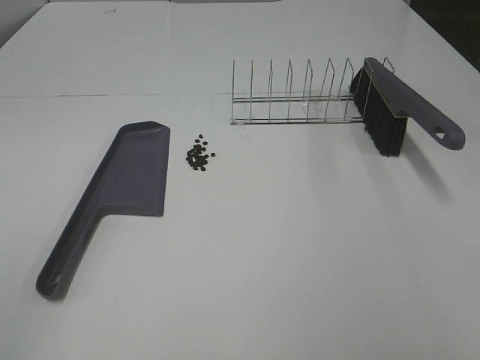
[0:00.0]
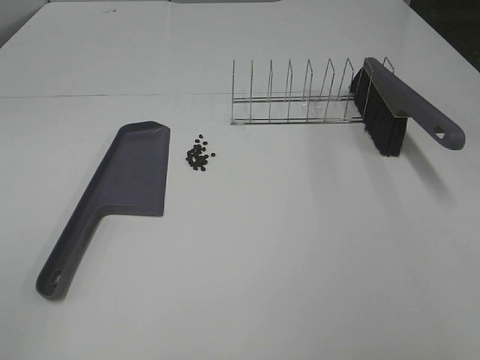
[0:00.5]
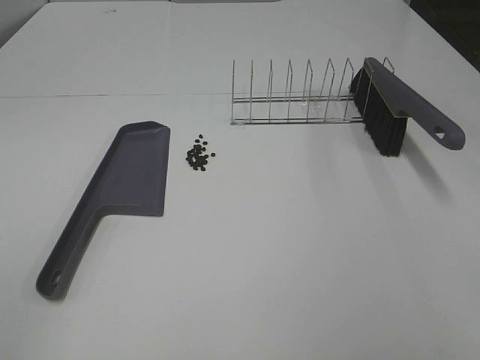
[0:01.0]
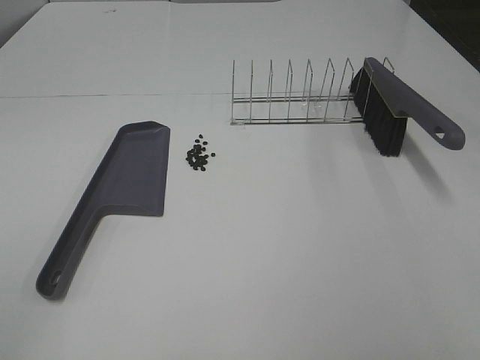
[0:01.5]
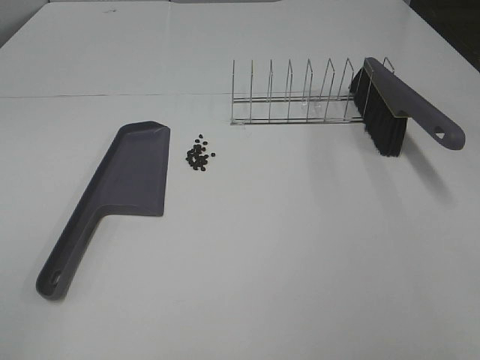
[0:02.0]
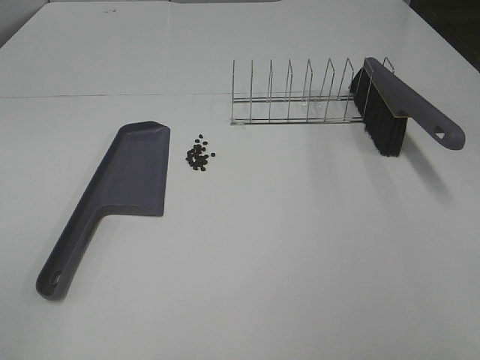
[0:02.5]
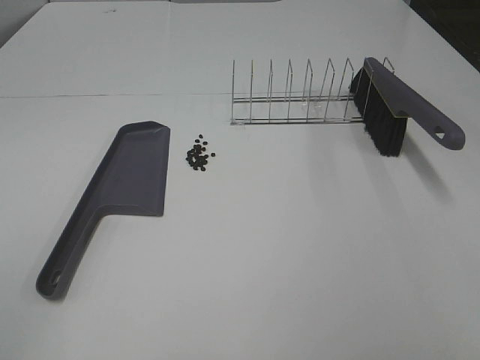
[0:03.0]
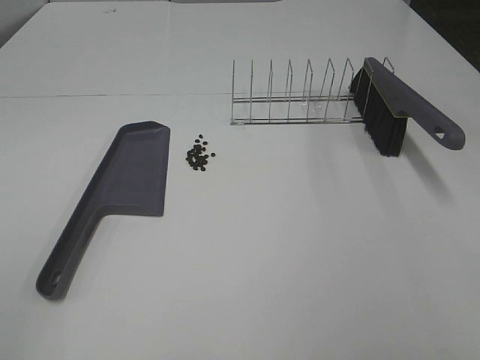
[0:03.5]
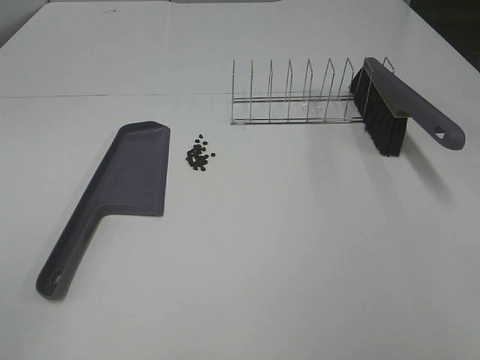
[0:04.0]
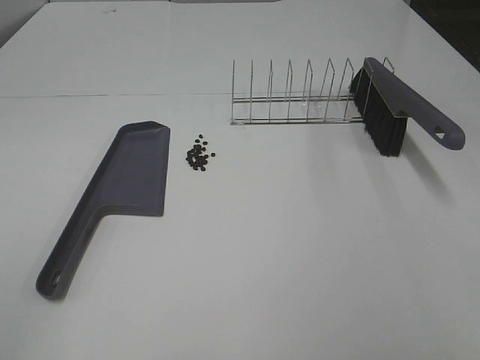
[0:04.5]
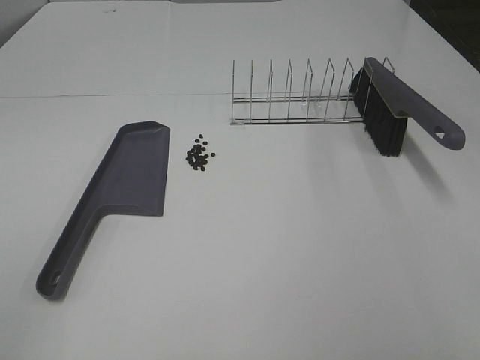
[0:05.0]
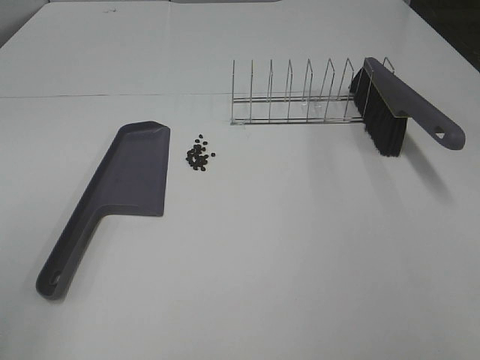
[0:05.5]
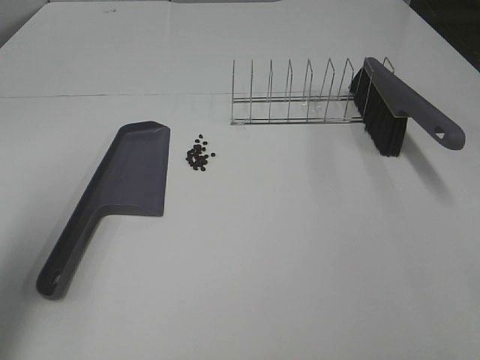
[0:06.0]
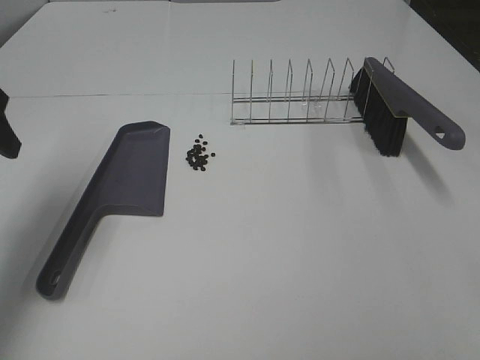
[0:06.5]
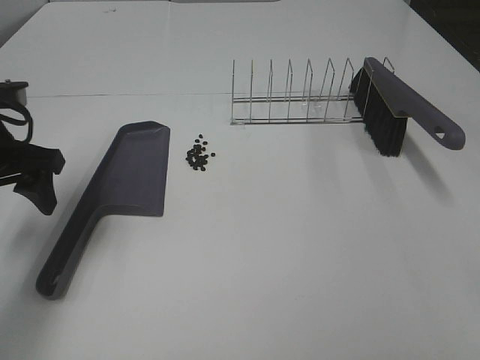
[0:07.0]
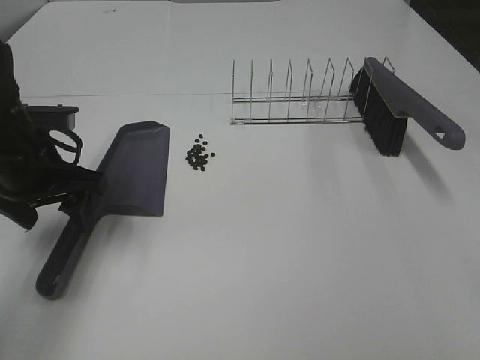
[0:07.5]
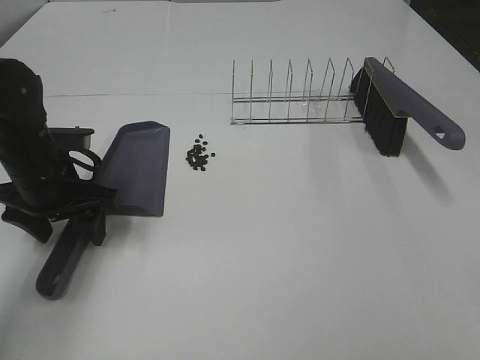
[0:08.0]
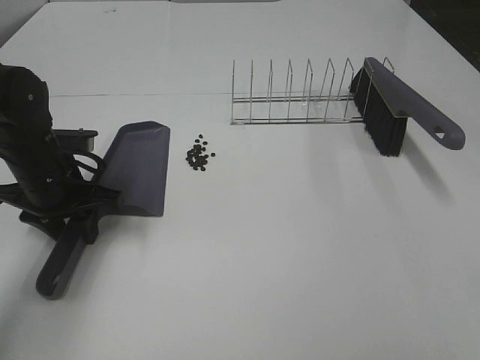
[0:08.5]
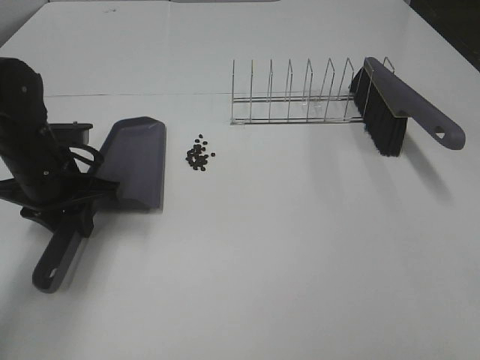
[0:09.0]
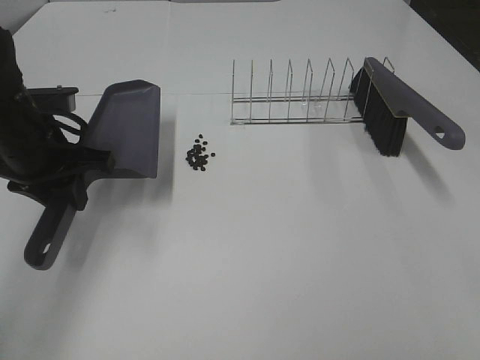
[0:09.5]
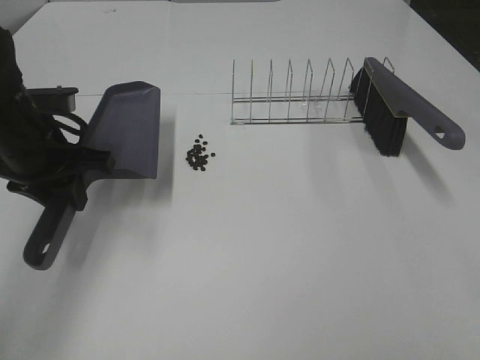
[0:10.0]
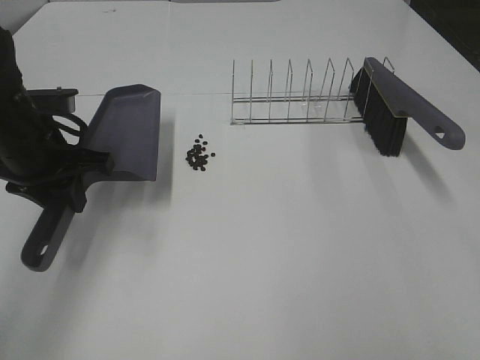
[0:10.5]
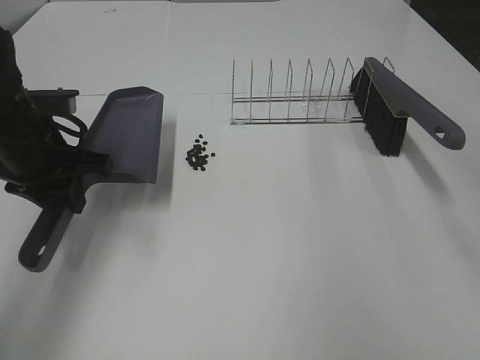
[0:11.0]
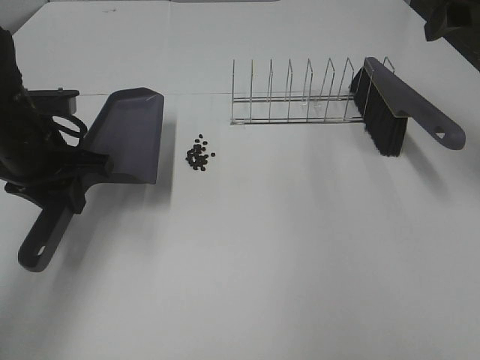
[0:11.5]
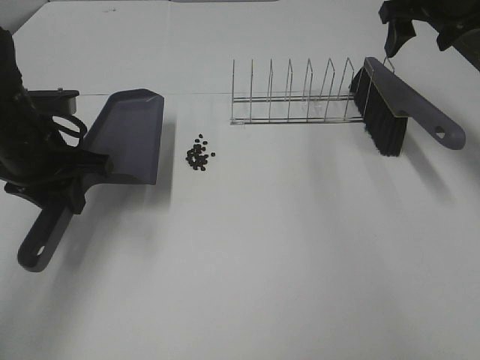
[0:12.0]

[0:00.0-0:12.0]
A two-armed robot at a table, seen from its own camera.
Task of the whole recording: Sweep Coffee Bean.
Step, 0:00.0 to 0:08.5: Left hand: grab the dustpan.
0:00.0 to 0:04.0: Neither gripper changes place.
0:04.0 to 0:06.0: The left gripper is displaced forward by about 20 cm.
0:06.0 to 0:08.0: The left gripper heads downward, forward and to the right, covering about 25 cm.
0:08.0 to 0:10.0: The left gripper shifts some 5 cm upward, and closes its fingers.
0:10.0 to 0:12.0: The right gripper travels forward by roughly 50 cm.

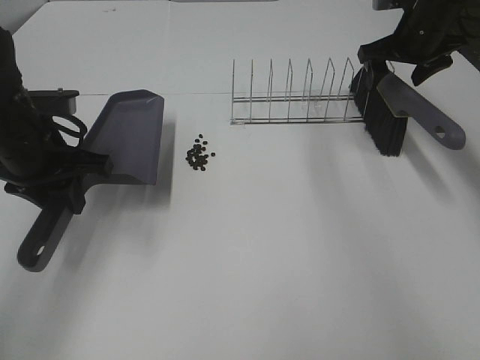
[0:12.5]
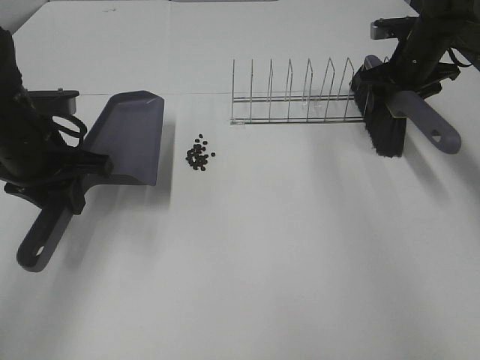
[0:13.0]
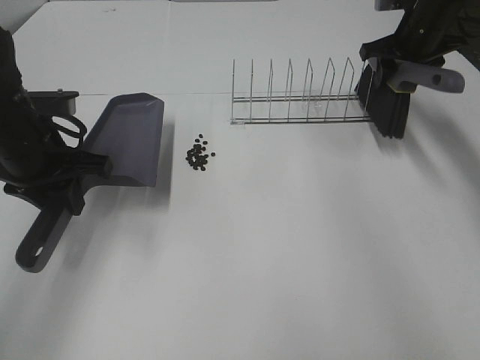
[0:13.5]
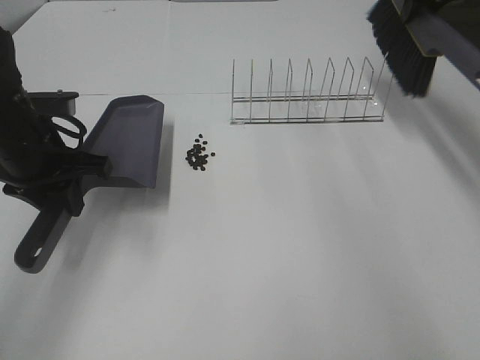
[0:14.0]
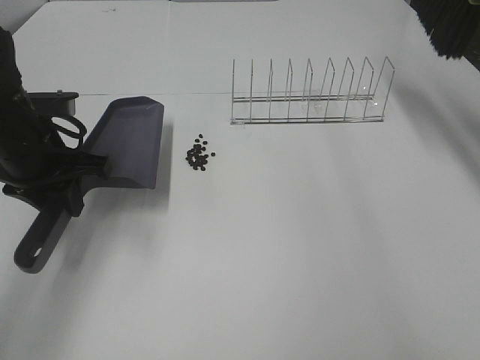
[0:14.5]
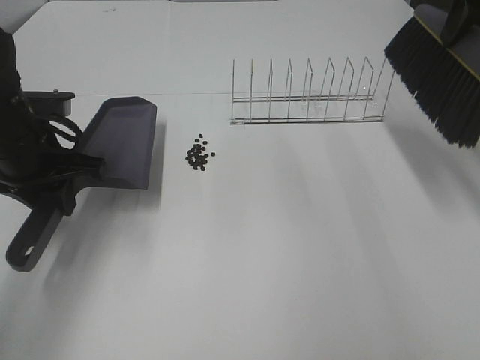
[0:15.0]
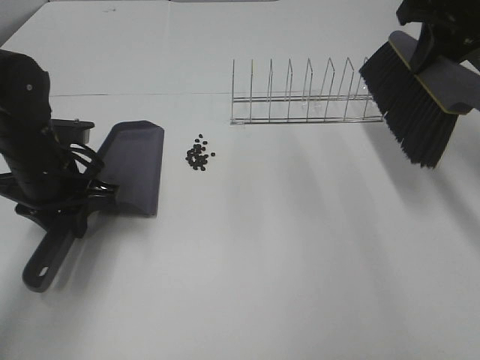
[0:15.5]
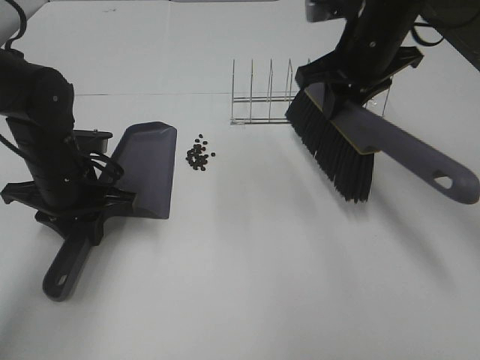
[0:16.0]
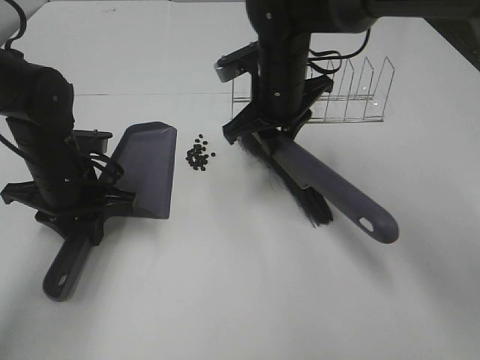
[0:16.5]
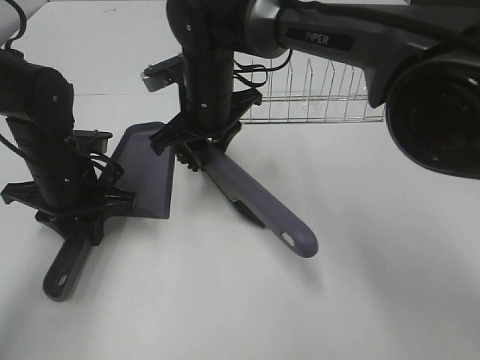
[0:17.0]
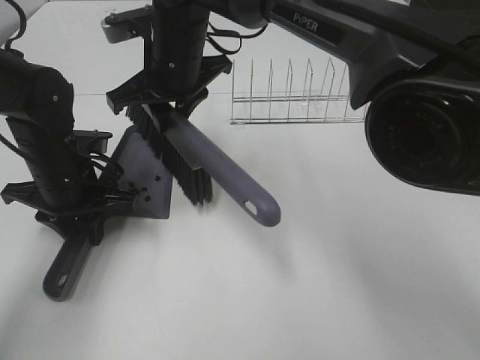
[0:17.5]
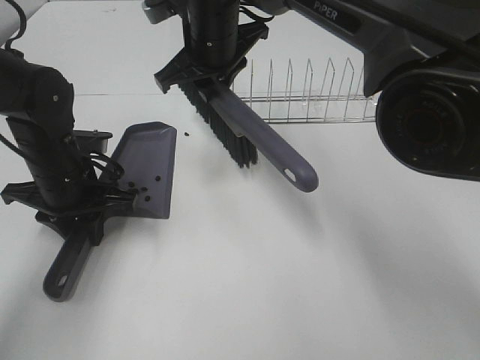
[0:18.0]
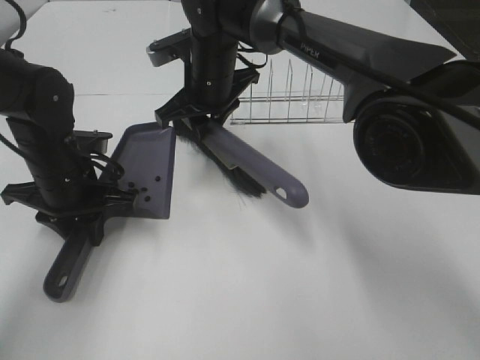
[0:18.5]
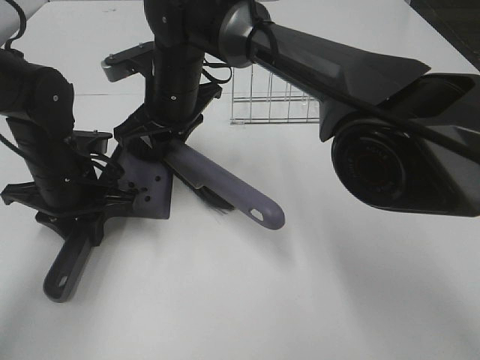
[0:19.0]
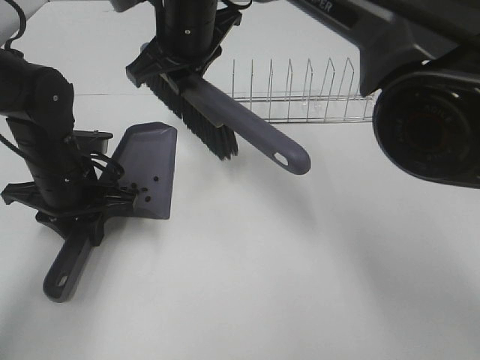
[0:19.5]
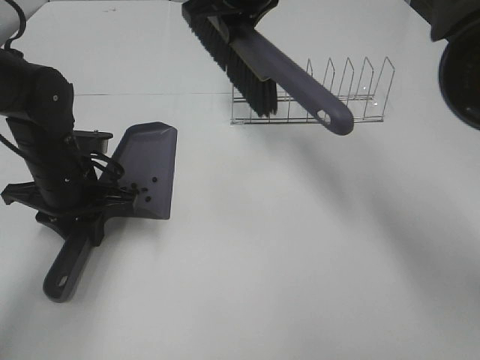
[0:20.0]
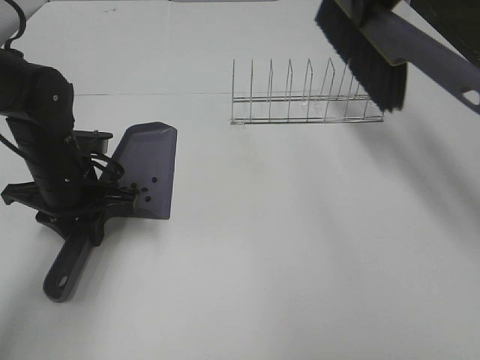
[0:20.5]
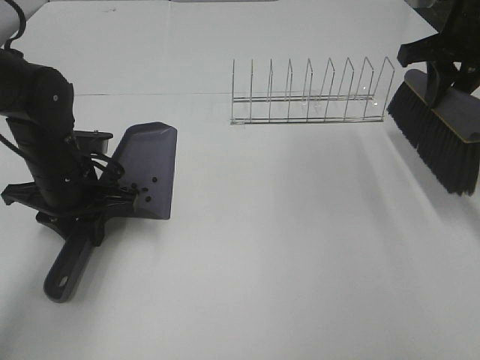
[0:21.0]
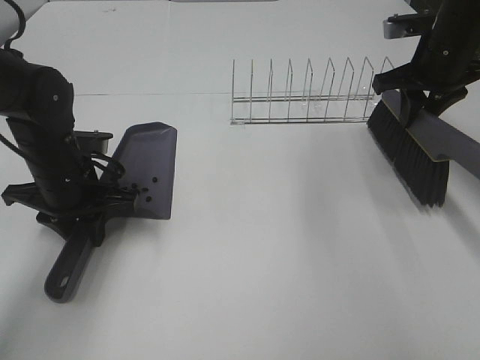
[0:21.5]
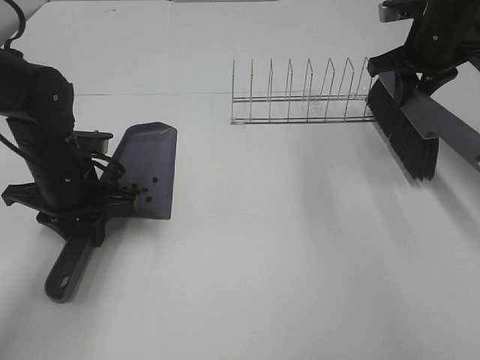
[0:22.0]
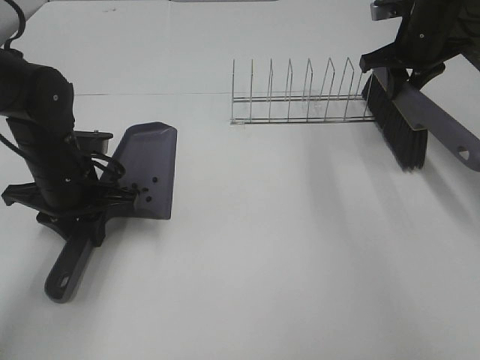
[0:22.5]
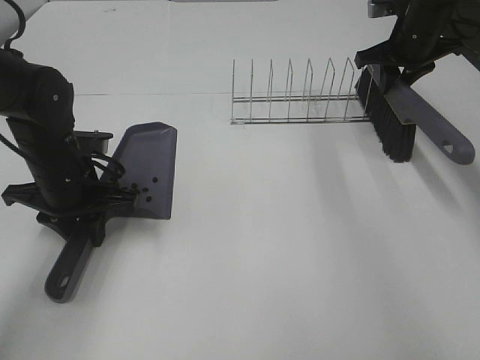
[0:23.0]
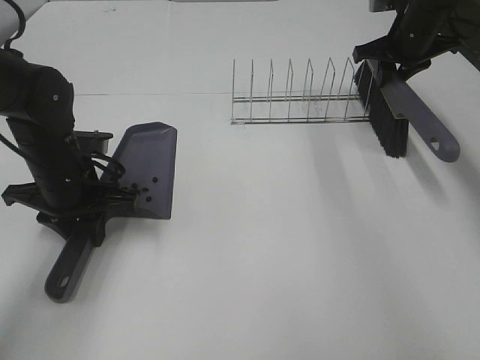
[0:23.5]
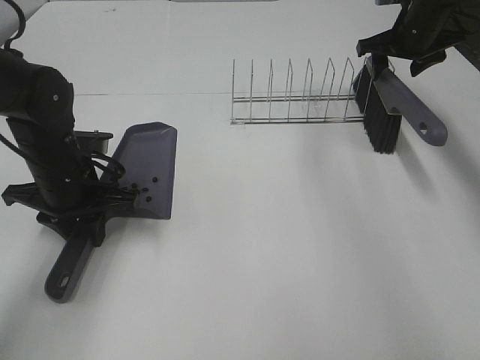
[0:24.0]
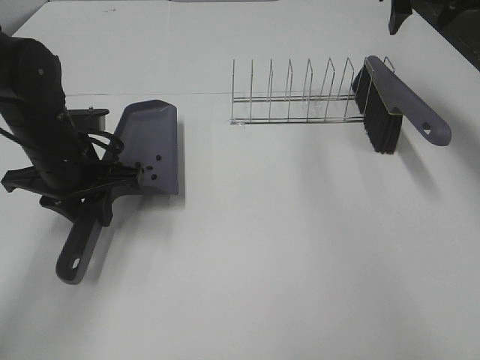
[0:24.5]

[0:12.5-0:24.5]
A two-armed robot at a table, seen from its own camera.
Task of the whole recording: Sweep Coffee Bean.
Step, 0:13.5 to 0:19.0: Right hand:sweep the coffee beans into the dustpan.
Step, 0:19.5 to 0:24.0: Right hand:place the broom on the rack.
0:12.5 to 0:14.5: The right gripper travels upward by some 20 cm, and closes its fingers.
0:14.5 to 0:16.5: The right gripper travels to the left and downward by roughly 30 cm; the left gripper moves downward, about 5 cm.
0:16.5 to 0:18.5: The right gripper shifts about 10 cm to the left.
0:18.5 to 0:20.5: The right gripper heads to the right and upward, covering about 25 cm.
0:20.5 to 0:22.5: The right gripper is displaced downward, to the right and forward by approximately 15 cm.
0:22.5 to 0:24.5: The right gripper is displaced upward by approximately 10 cm, and opens.

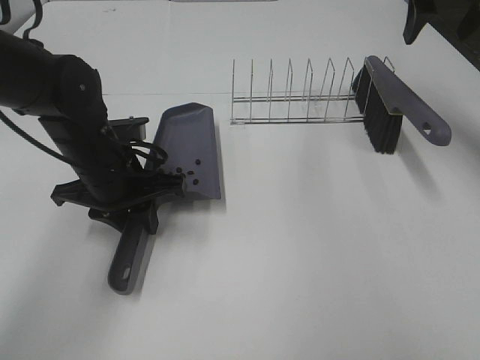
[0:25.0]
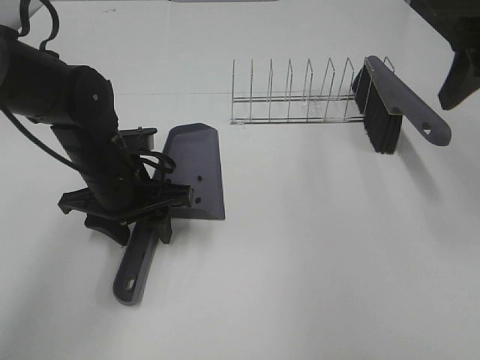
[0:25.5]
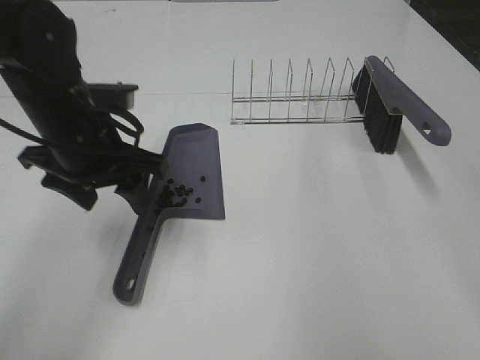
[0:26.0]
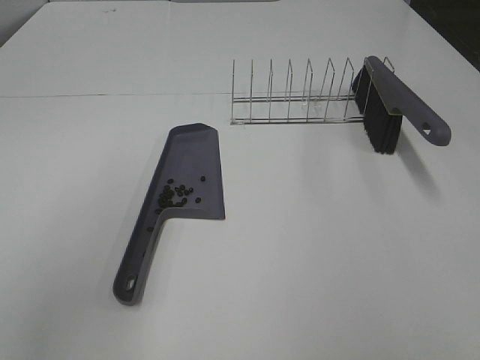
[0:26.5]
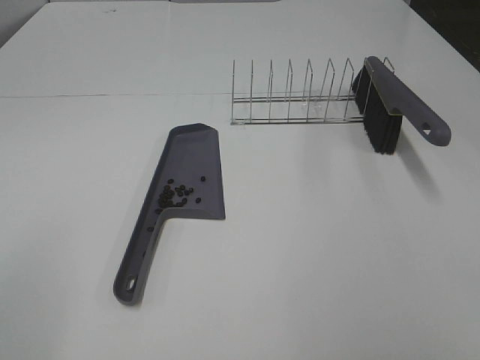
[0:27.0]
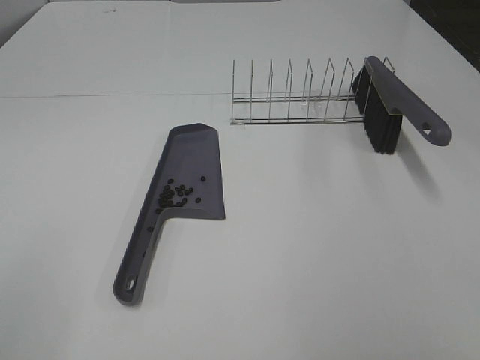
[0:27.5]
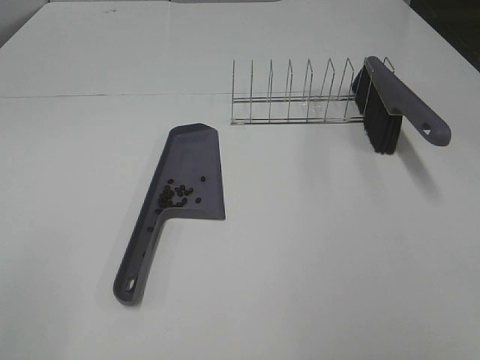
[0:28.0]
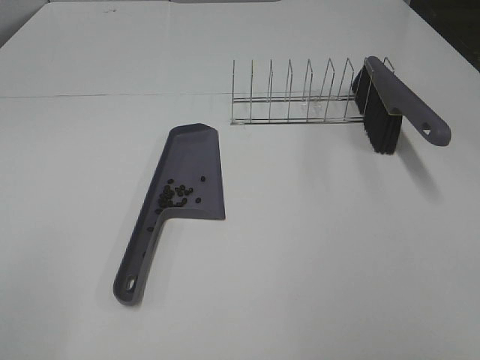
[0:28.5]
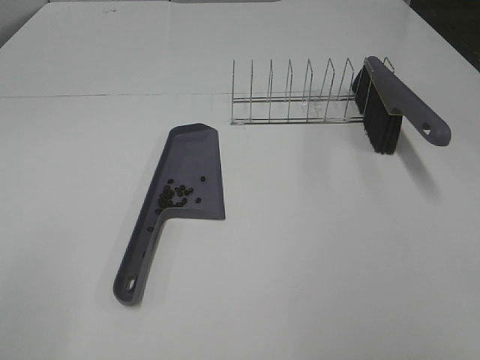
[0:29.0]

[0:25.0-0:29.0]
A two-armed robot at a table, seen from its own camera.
Task of the whole recording: Sweep Coffee Bean.
0:25.0 to 0:27.0: The left gripper heads backward, upward and to the left, covering roughly 40 cm, and opens, while the right gripper goes roughly 40 cm backward.
